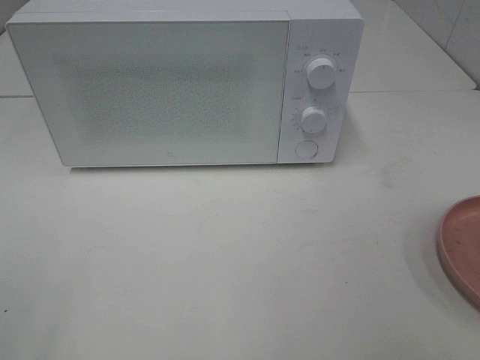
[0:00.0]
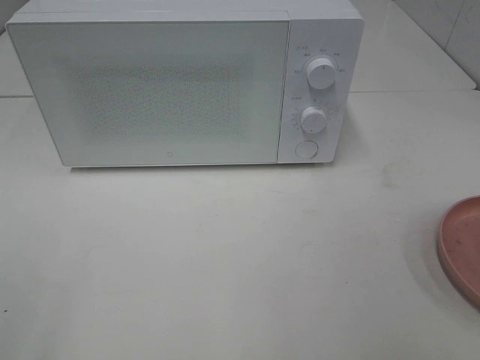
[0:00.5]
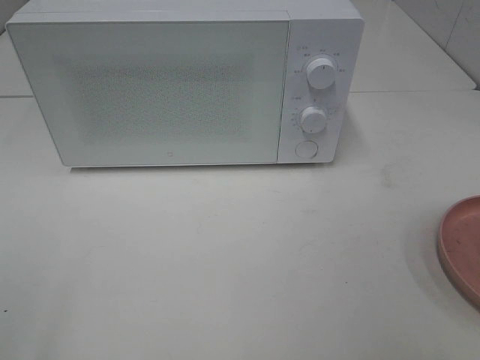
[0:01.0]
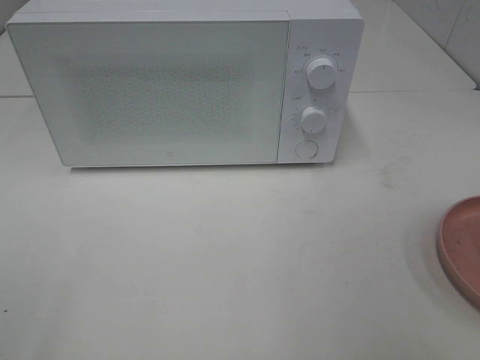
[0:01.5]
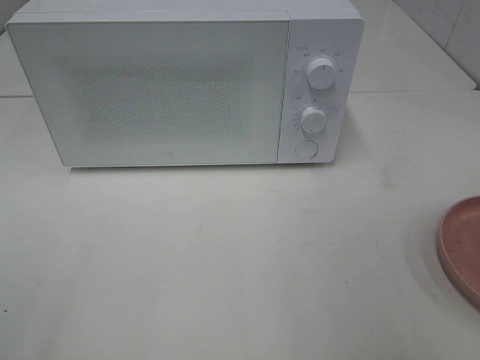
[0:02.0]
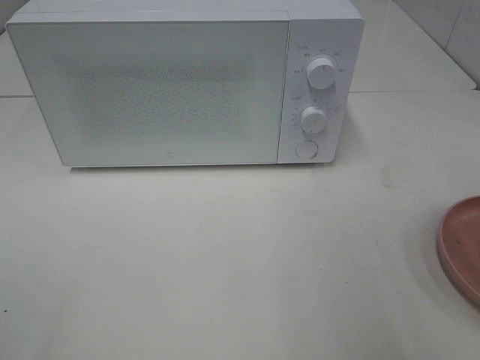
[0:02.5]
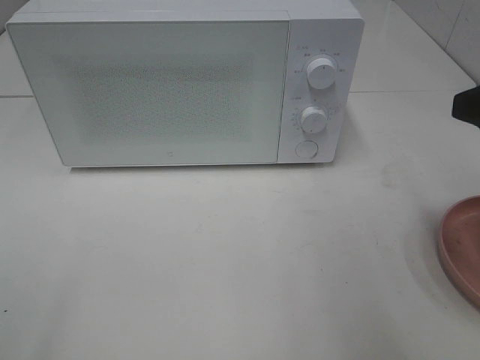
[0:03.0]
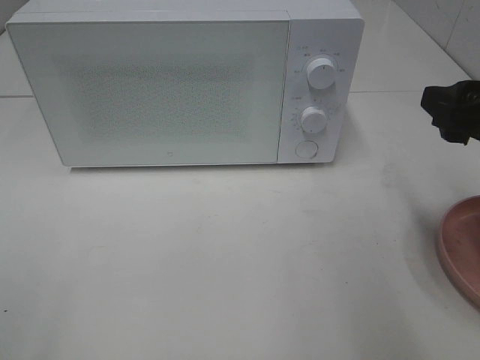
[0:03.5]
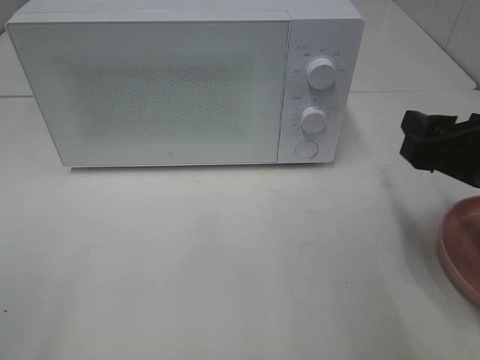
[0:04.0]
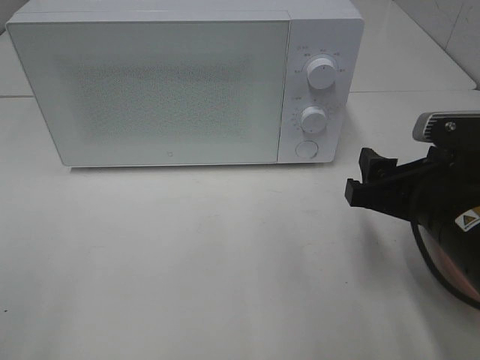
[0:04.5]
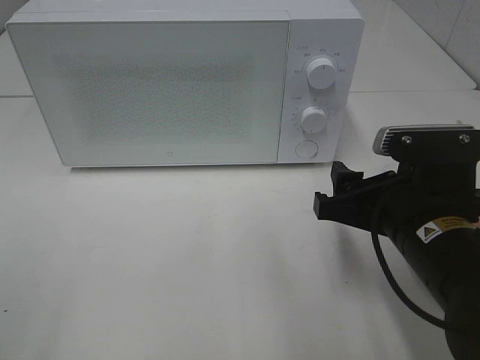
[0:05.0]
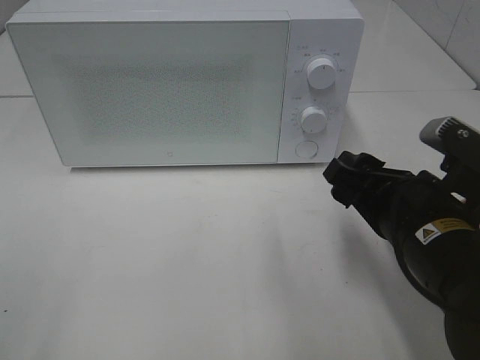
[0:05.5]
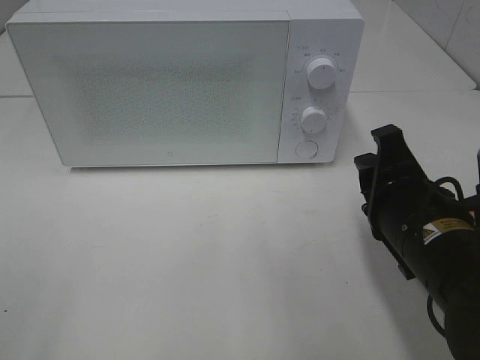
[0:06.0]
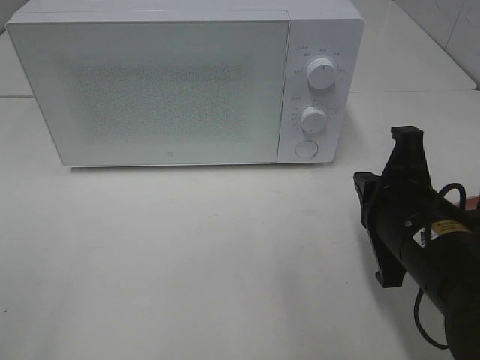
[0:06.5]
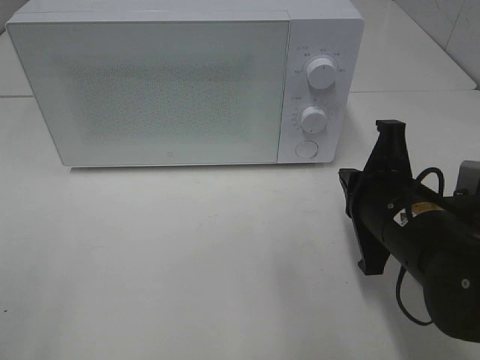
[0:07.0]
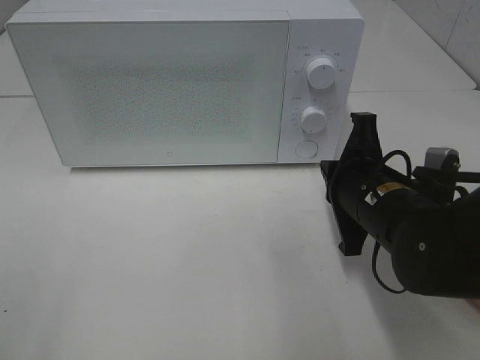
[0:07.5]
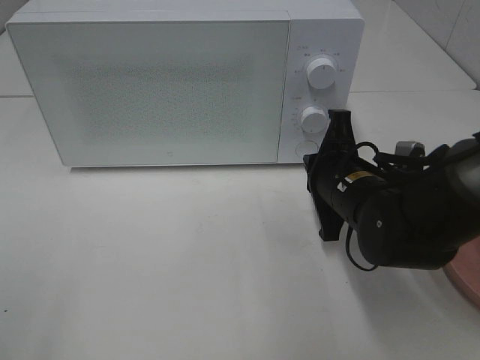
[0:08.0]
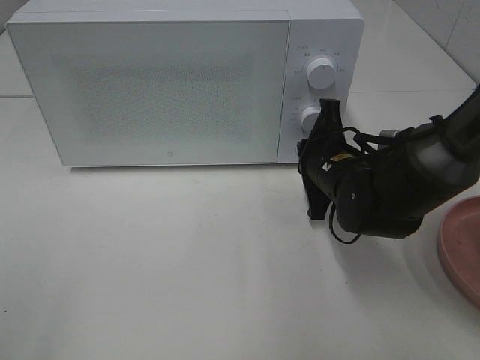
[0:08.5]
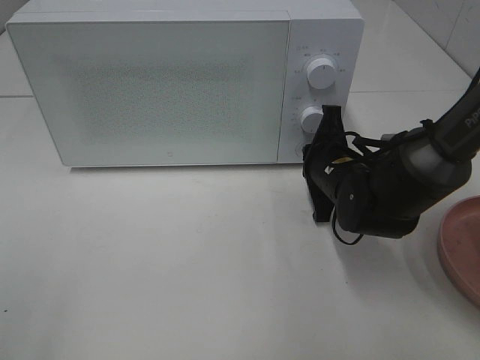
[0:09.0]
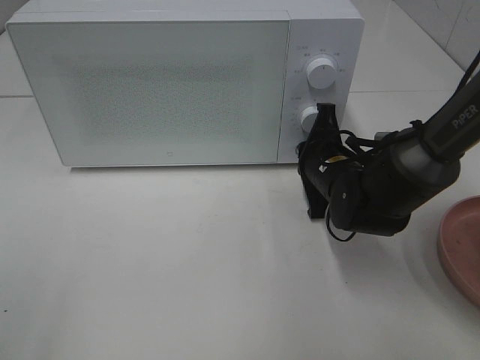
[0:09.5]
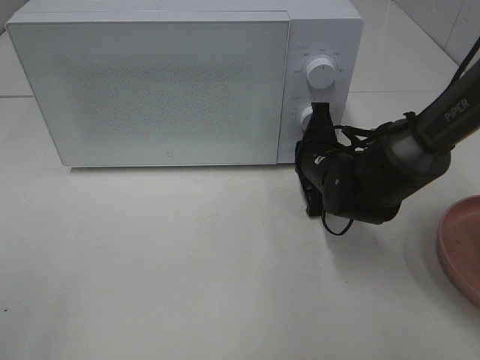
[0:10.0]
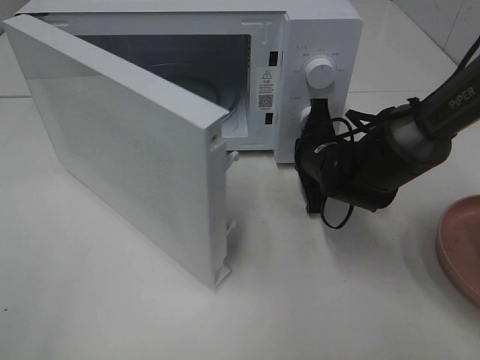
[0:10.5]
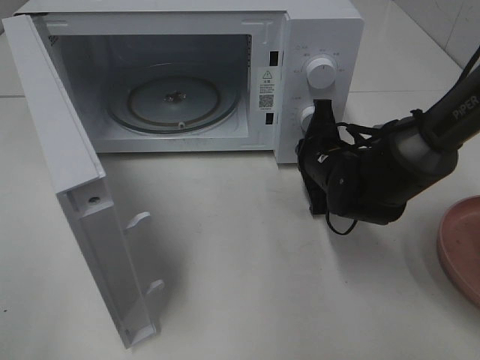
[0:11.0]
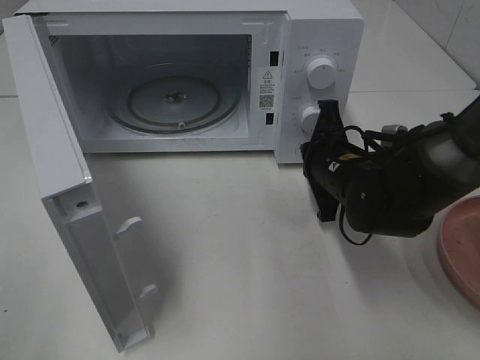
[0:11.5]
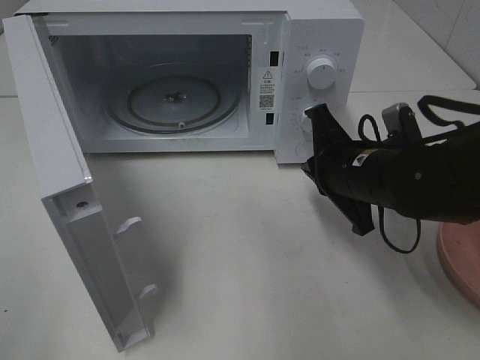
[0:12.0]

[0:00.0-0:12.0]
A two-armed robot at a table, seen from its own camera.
Task of the whole recording: Heat the burger.
Step, 0.0 to 11.5 s: Right hand: press the switch.
2.0 to 4.0 s: The right gripper moves downward and forward, some 15 cm.
4.0 to 6.0 s: The right gripper moves to the left, roughly 5 cm, and closes up.
6.0 to 8.0 s: The right gripper travels forward by roughly 10 cm, and closes up.
8.0 to 10.0 s: The right gripper shifts roughly 10 cm forward.
10.0 to 12.0 s: The right gripper shifts about 10 cm backward and upward.

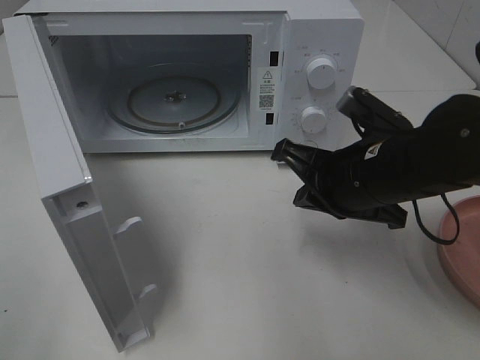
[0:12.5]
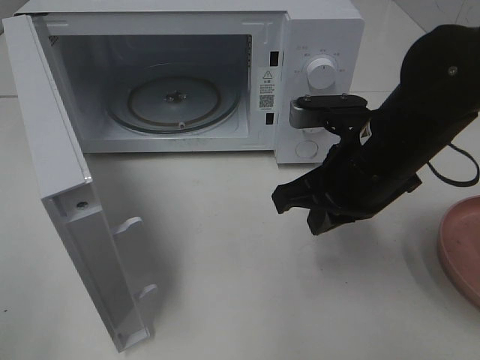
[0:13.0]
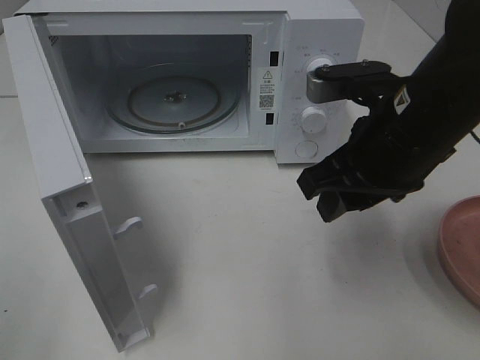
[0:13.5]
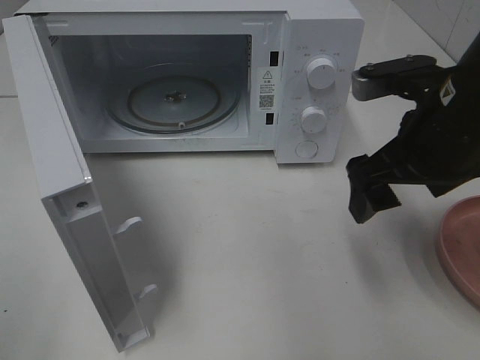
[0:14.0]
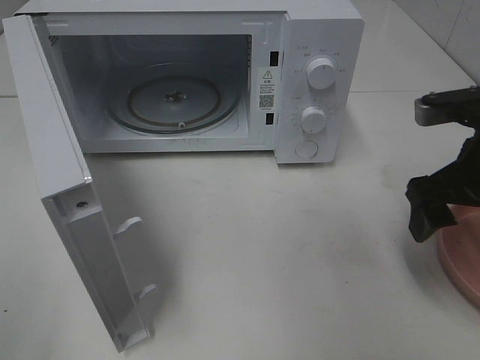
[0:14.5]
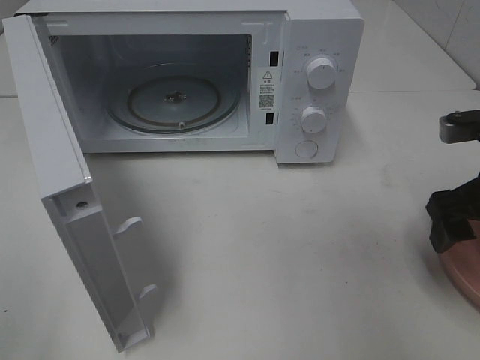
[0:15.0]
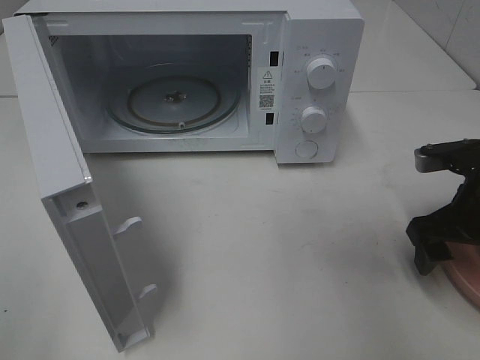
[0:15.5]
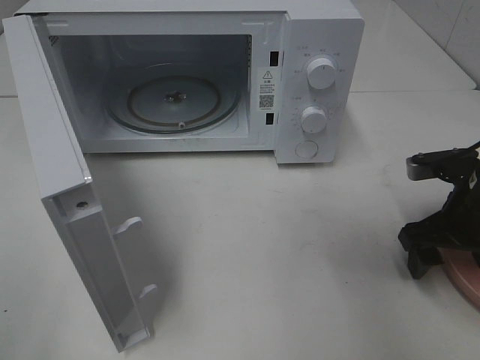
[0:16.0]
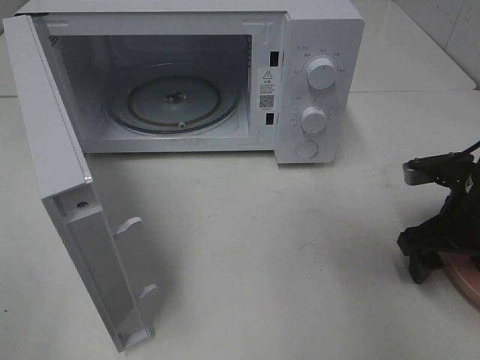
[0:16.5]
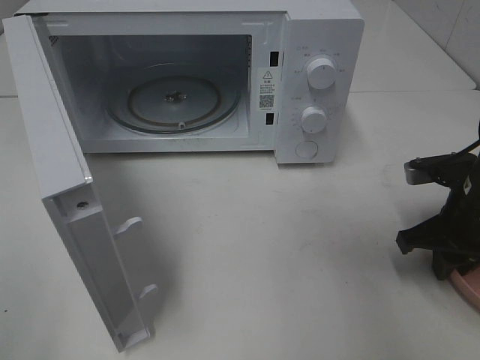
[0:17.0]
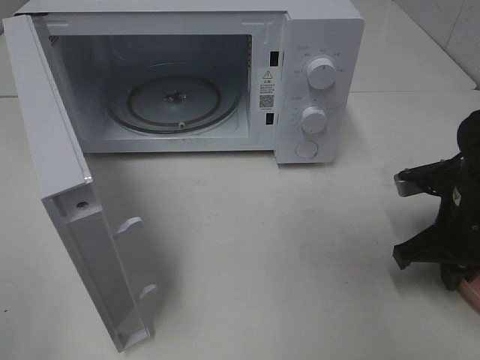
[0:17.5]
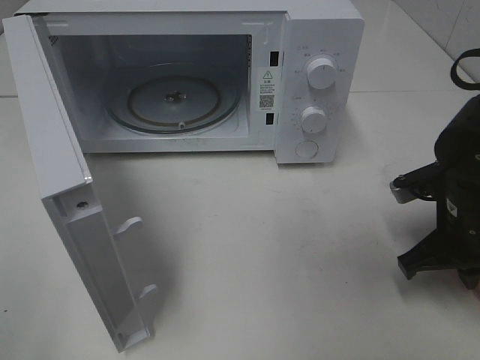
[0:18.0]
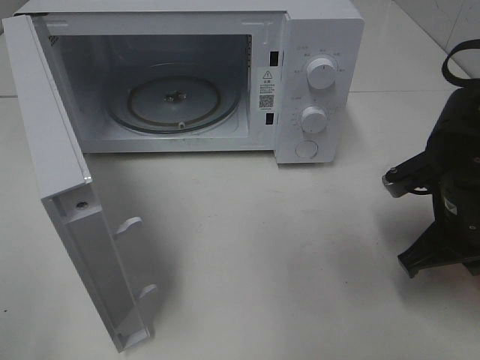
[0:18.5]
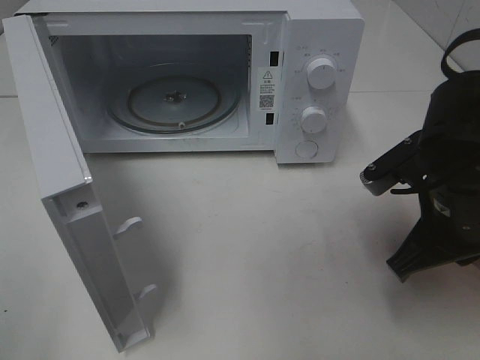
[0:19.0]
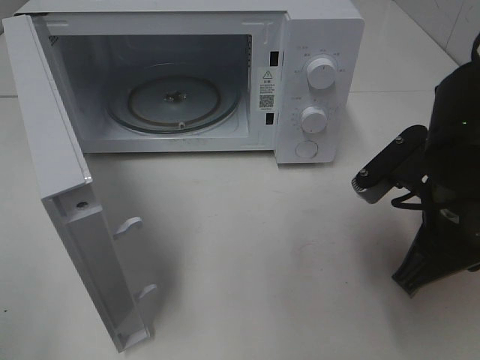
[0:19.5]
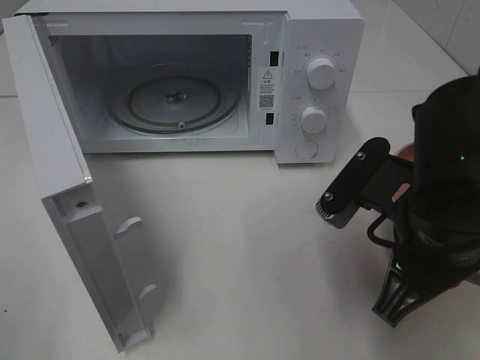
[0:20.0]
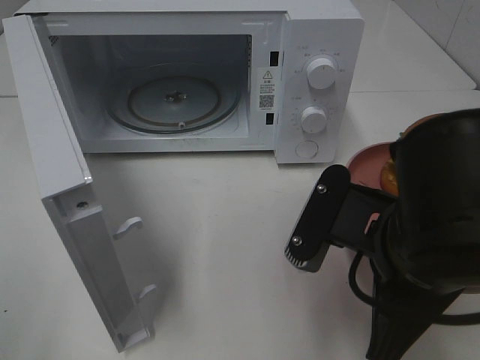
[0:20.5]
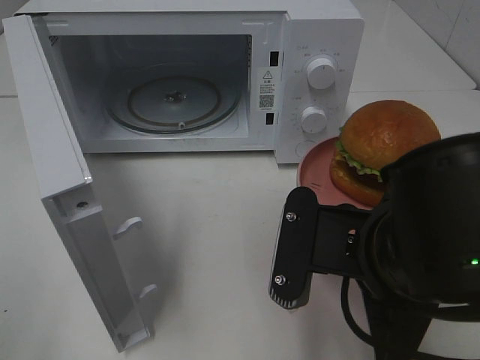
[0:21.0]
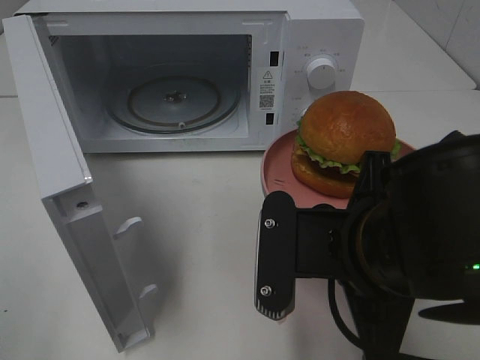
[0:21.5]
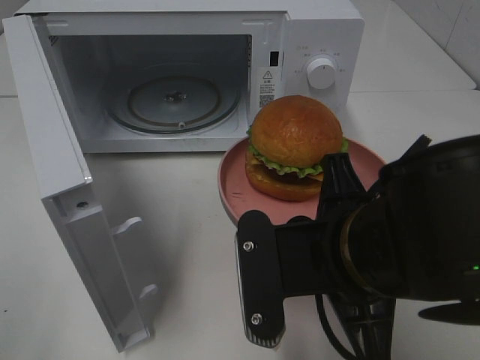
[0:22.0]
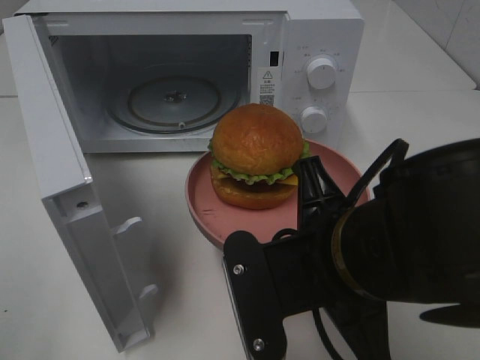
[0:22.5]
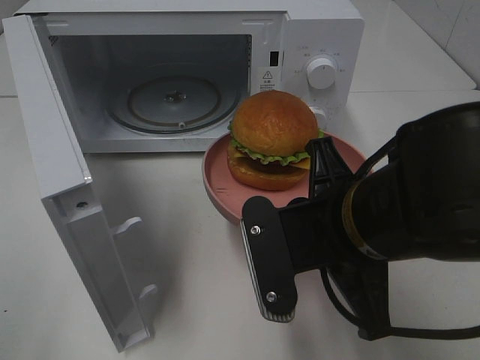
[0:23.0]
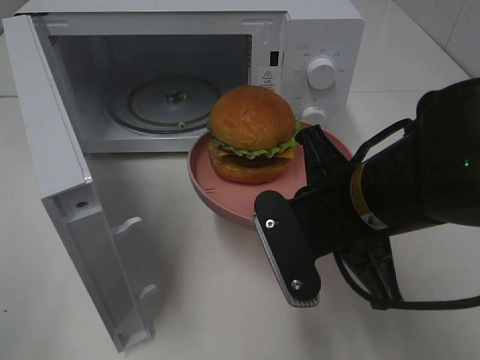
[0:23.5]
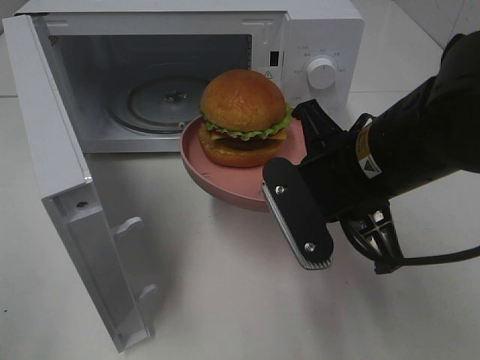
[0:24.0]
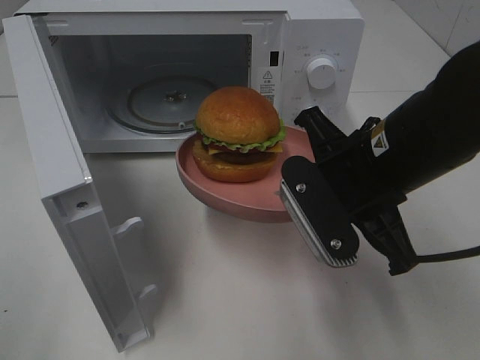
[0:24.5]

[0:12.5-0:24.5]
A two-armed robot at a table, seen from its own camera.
Task of the whole recording: Heat the burger.
Step, 12.5 to 17.5 s: Right hand: grab the plate with the hamburger.
12.5 to 14.5 s: The right gripper moves to the right, some 10 cm, and opens.
14.5 to 16.5 s: The right gripper is displaced downward by approximately 10 cm.
16.5 to 18.5 s: The right gripper shifts by some 5 cm, and closes up.
18.5 to 20.5 s: The right gripper moves to the left, backward and upward, approximately 15 cm.
22.5 to 24.5 s: The right gripper is displaced forward by some 10 cm.

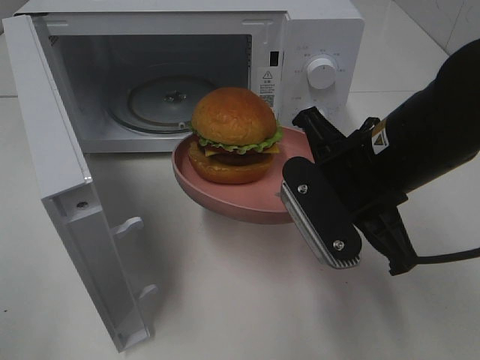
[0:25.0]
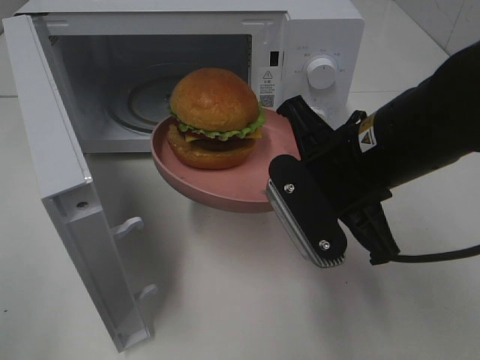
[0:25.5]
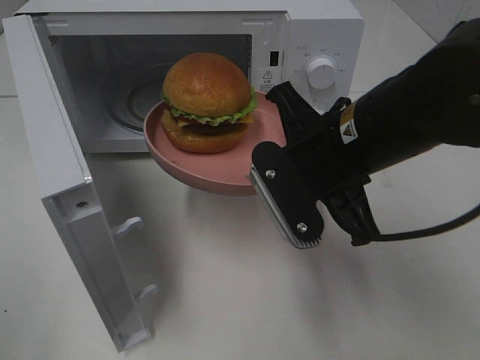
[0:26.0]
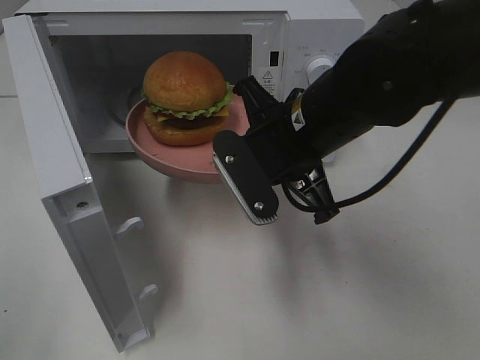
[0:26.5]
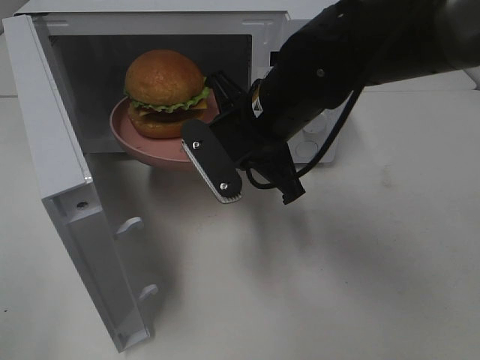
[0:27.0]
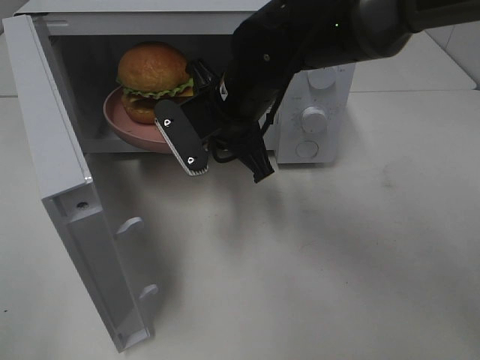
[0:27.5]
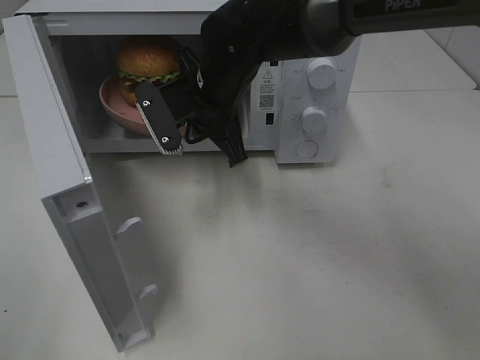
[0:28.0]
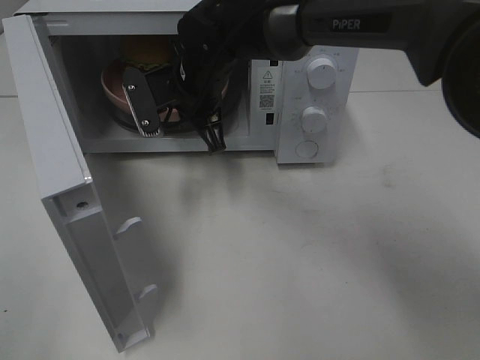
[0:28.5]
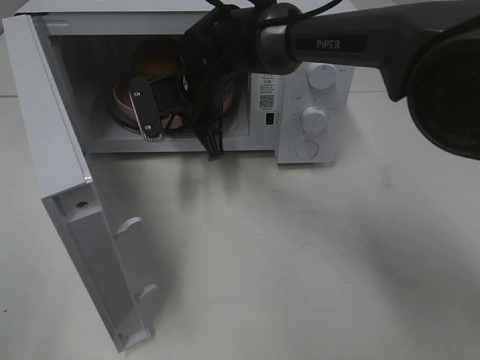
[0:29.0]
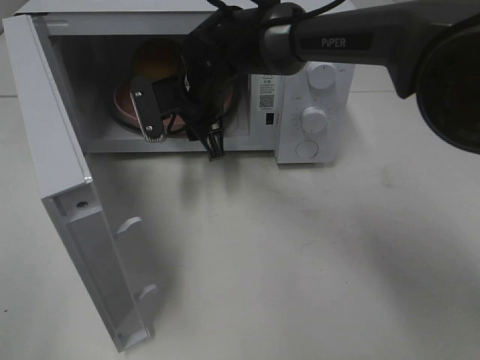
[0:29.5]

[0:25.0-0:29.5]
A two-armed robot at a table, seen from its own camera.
Task of the whole recording: Heat the burger.
25.0 to 27.0 s: The right gripper heads to the left and forward, covering approximately 10 cm.
27.0 to 29.5 s: The right gripper is displaced forward and to the left by approximately 15 cm, and opens its fingers.
